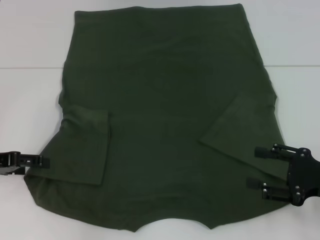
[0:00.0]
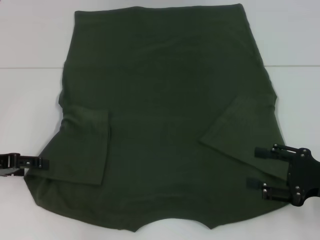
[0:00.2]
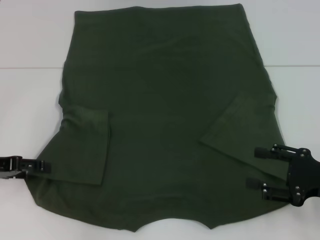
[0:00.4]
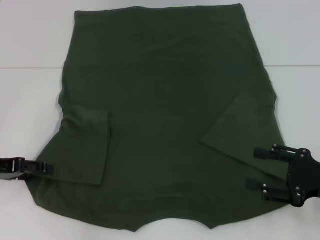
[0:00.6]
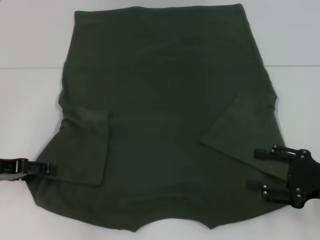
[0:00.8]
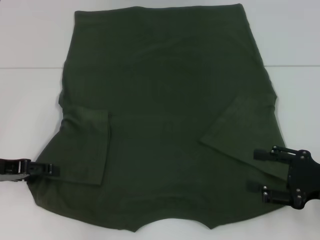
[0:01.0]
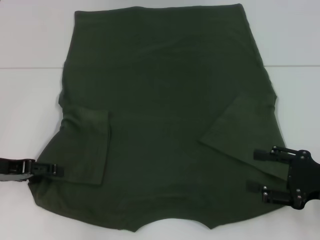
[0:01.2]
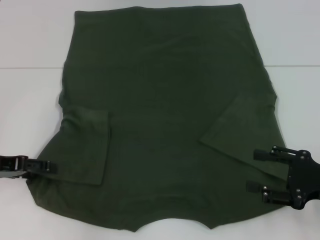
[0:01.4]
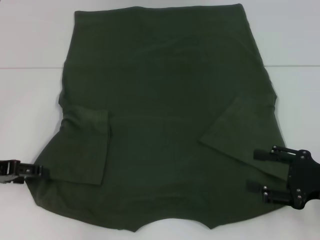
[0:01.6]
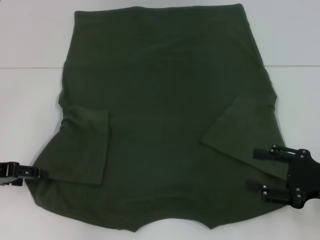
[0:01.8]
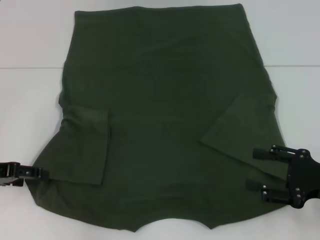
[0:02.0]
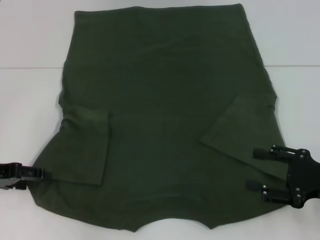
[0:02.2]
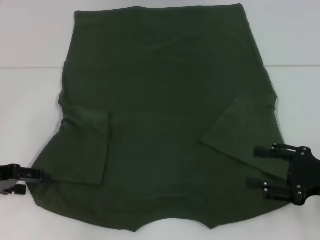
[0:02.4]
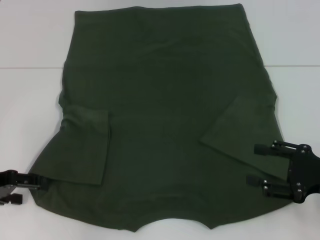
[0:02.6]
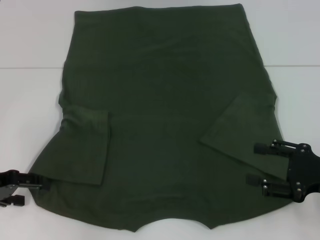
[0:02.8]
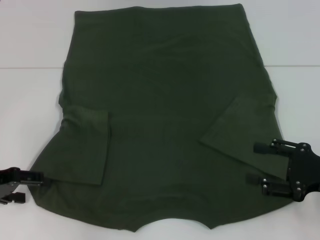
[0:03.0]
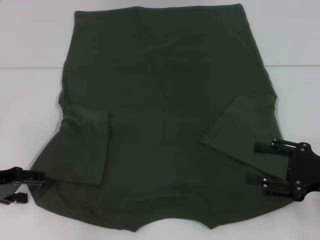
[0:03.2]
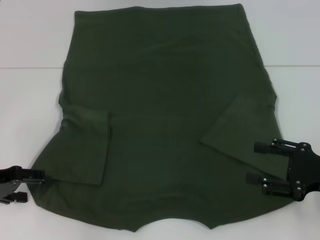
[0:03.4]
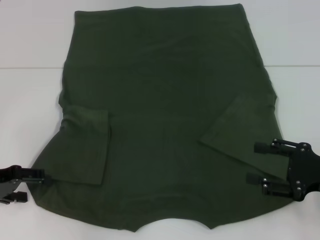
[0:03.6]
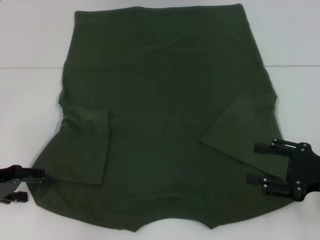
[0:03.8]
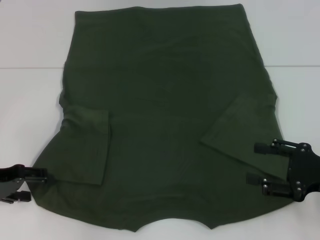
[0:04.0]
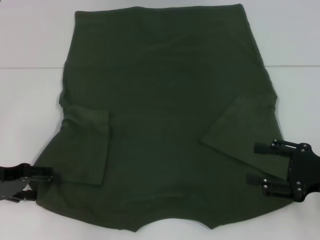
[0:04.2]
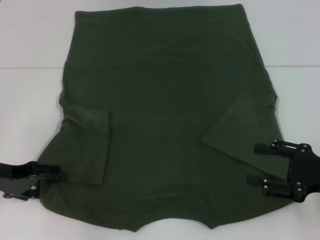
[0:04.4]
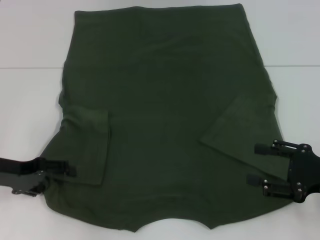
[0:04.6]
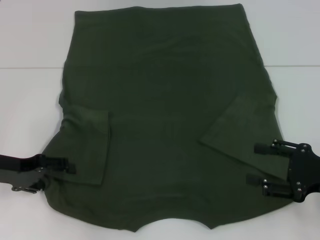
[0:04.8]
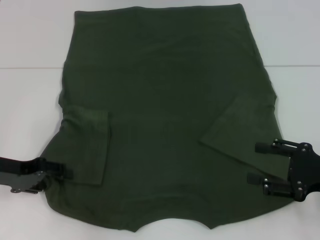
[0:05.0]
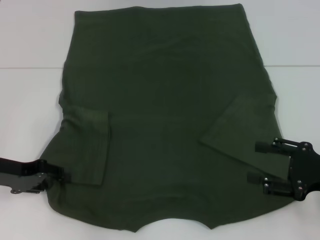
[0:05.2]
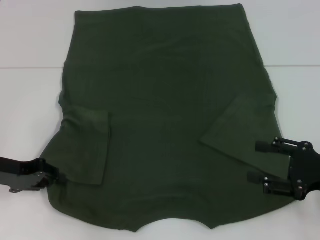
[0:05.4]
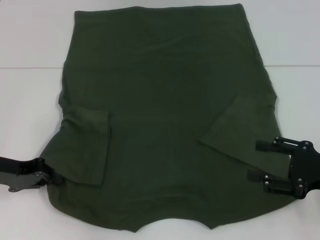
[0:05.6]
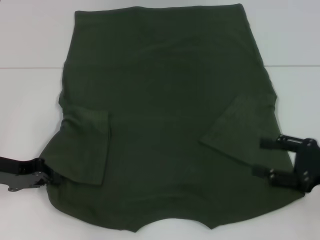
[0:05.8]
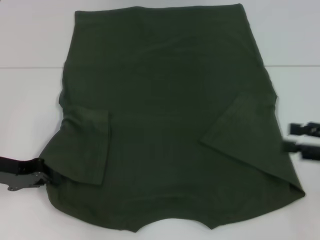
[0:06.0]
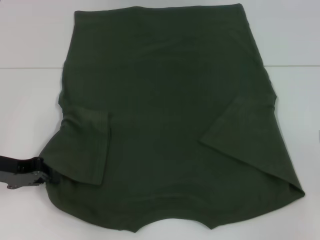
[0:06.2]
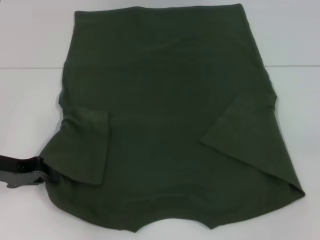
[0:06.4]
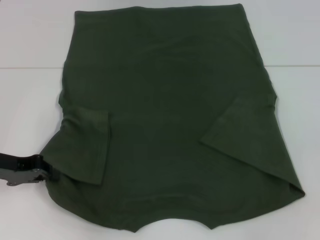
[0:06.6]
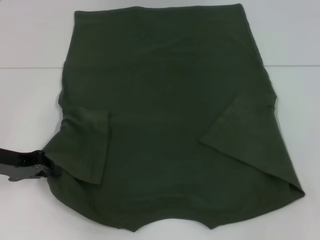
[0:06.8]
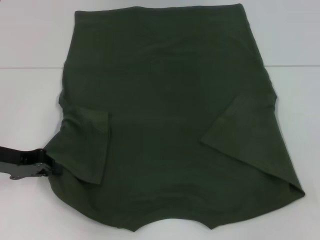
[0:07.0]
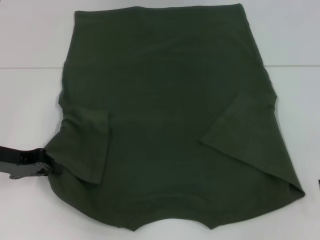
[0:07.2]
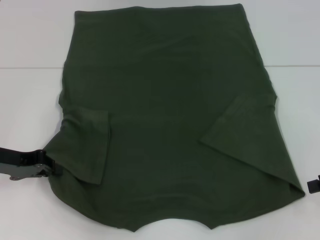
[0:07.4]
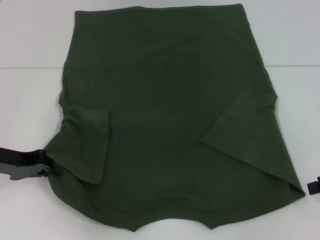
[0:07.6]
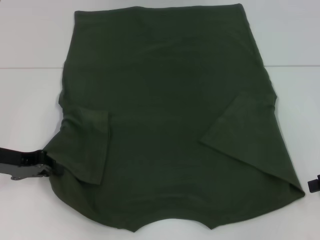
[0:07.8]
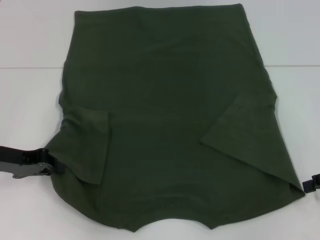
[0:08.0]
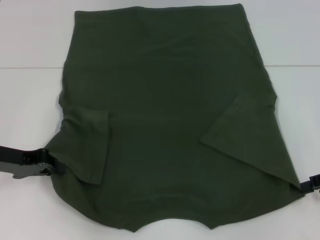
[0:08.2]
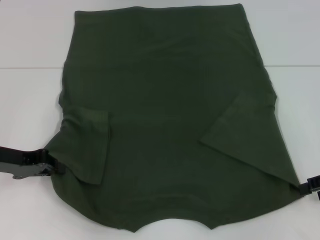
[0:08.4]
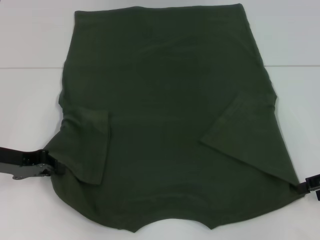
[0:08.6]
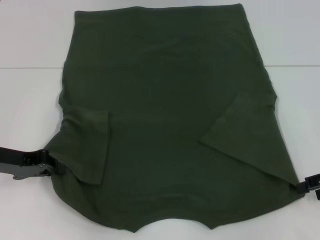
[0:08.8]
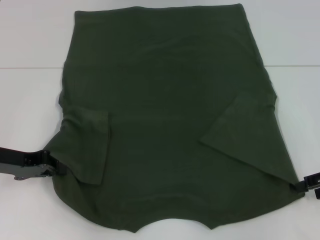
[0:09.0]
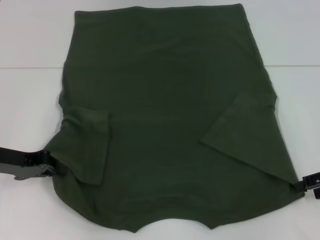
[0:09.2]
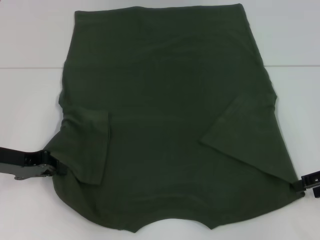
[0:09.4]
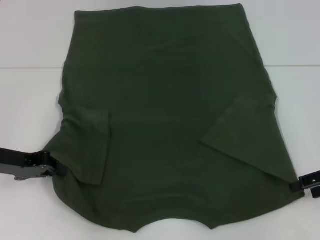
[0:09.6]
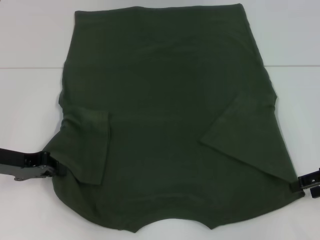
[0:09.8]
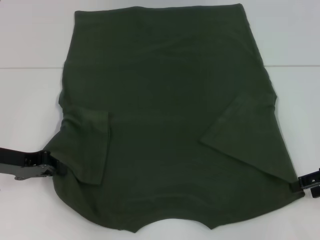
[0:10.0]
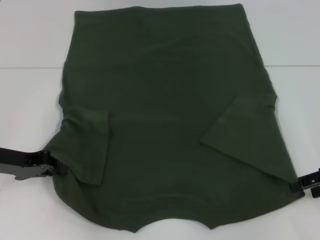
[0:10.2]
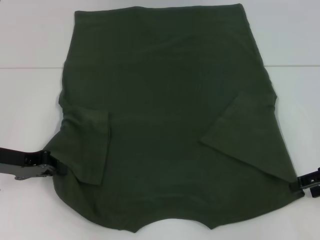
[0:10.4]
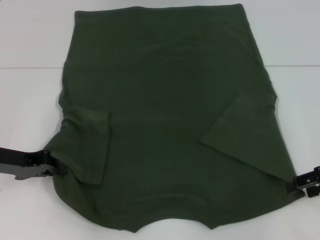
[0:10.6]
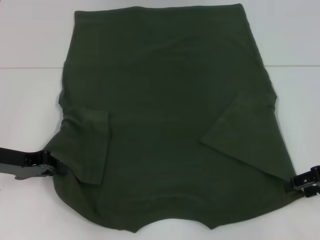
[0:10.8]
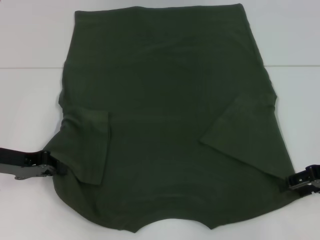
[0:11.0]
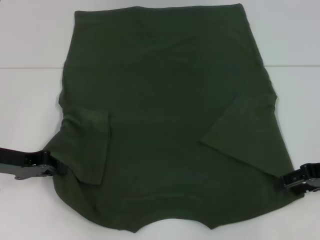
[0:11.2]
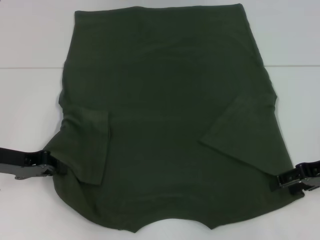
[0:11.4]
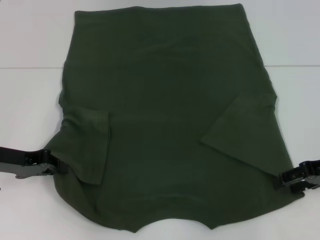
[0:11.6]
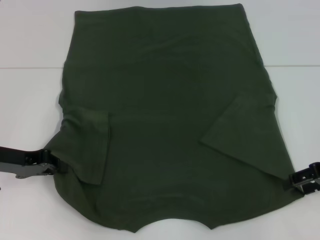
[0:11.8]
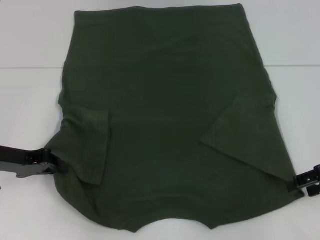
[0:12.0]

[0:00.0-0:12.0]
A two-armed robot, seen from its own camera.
Step, 0:00.0 to 0:05.8: Grab the bottom left corner with your left hand.
0:00.0 to 0:04.4: The grippers make only small movements.
0:04.4 to 0:06.0: The left gripper closes; the right gripper moves upward, about 5 cm.
0:07.6 to 0:09.0: The grippers make only small movements.
0:09.0 to 0:10.4: The two grippers keep their place.
0:10.4 to 0:12.0: There are only small adjustments of the grippers.

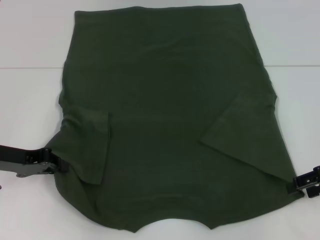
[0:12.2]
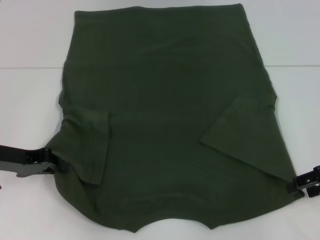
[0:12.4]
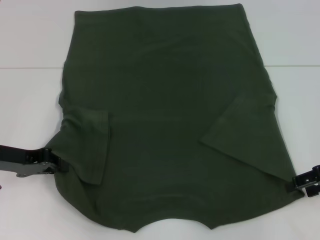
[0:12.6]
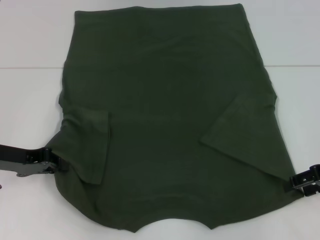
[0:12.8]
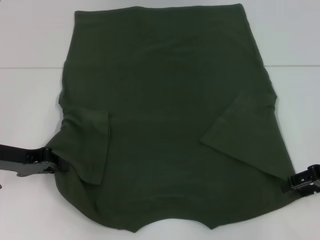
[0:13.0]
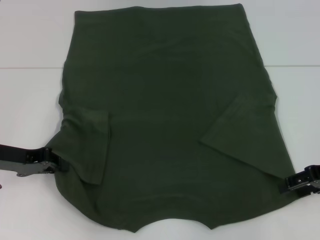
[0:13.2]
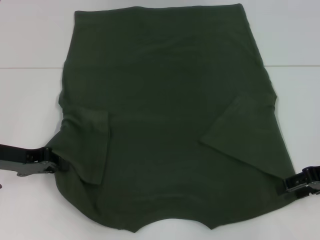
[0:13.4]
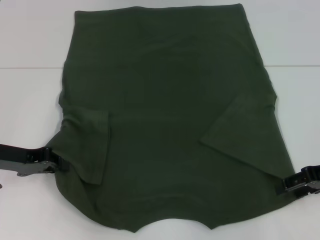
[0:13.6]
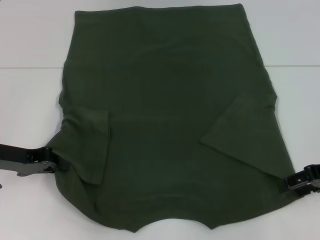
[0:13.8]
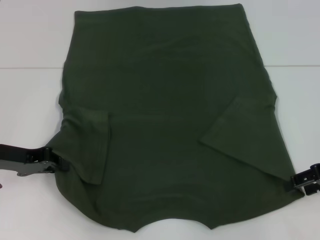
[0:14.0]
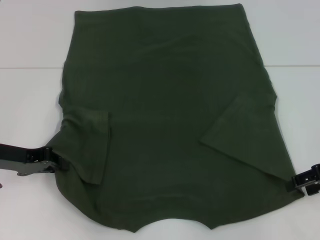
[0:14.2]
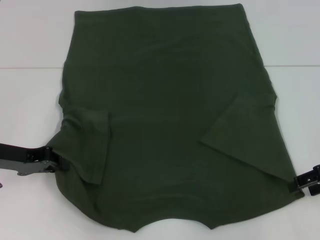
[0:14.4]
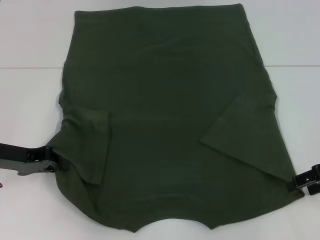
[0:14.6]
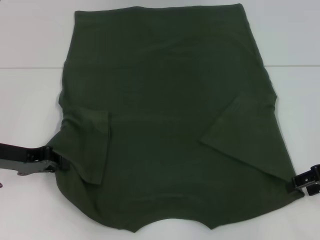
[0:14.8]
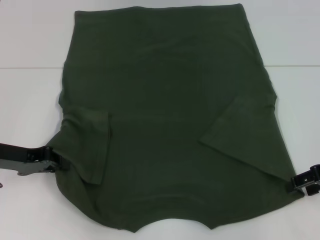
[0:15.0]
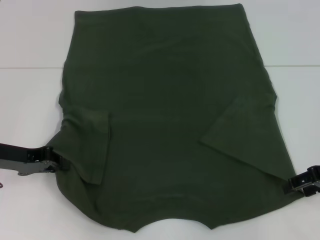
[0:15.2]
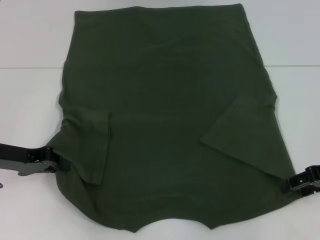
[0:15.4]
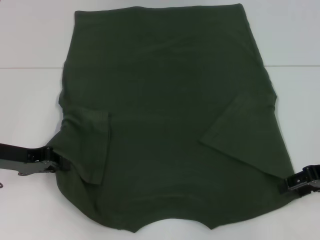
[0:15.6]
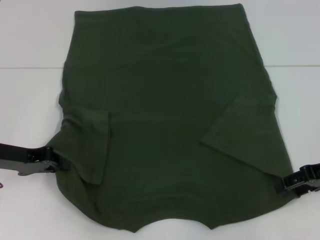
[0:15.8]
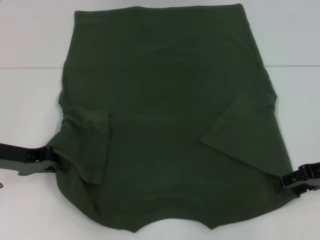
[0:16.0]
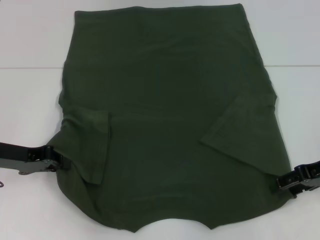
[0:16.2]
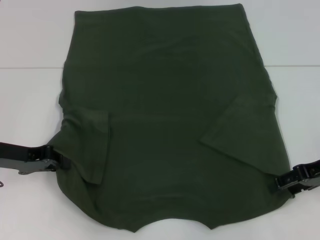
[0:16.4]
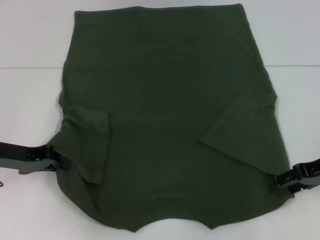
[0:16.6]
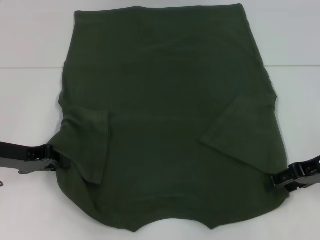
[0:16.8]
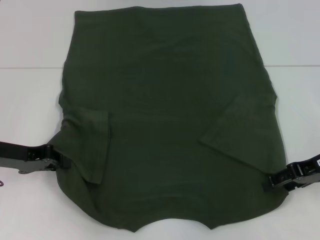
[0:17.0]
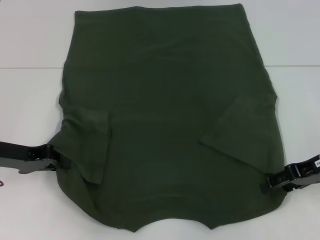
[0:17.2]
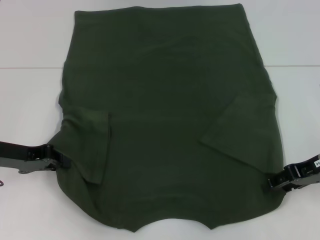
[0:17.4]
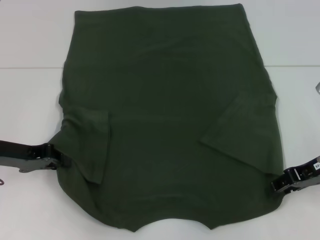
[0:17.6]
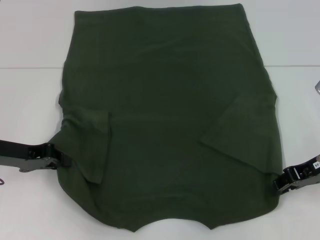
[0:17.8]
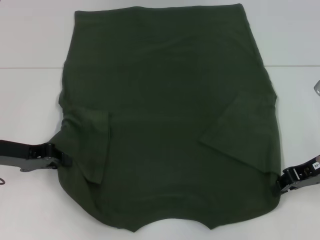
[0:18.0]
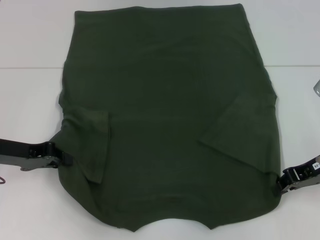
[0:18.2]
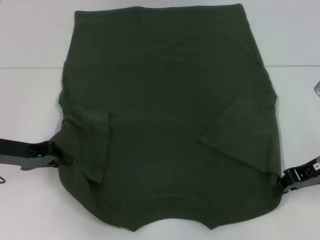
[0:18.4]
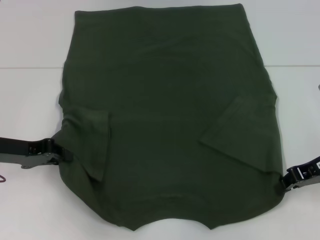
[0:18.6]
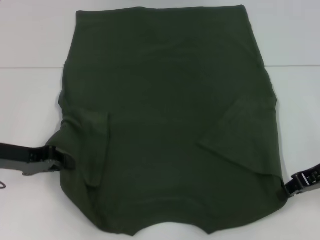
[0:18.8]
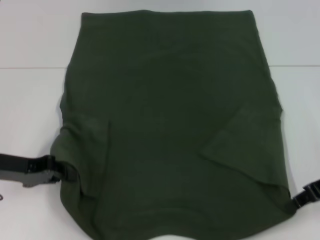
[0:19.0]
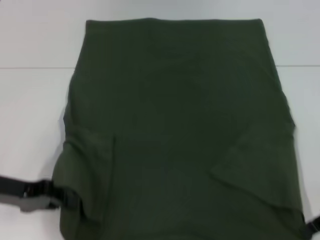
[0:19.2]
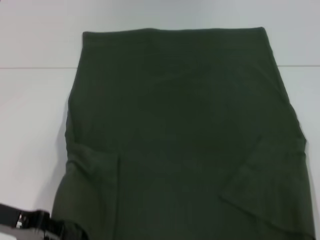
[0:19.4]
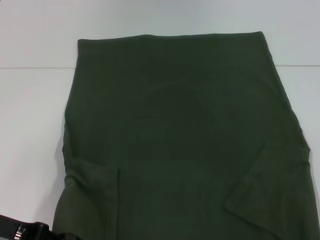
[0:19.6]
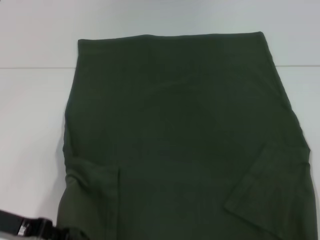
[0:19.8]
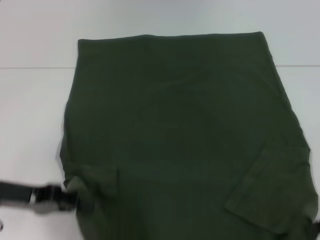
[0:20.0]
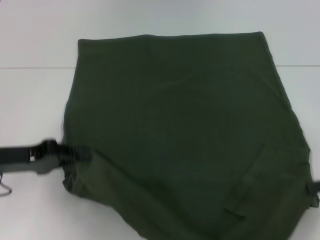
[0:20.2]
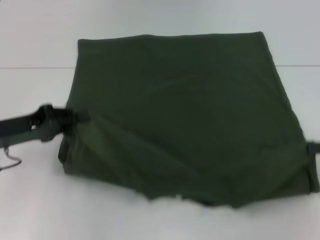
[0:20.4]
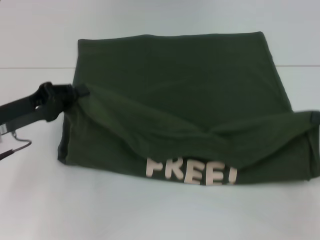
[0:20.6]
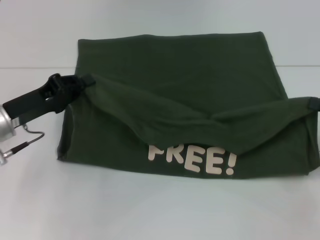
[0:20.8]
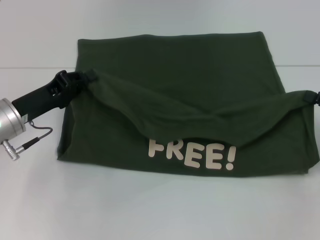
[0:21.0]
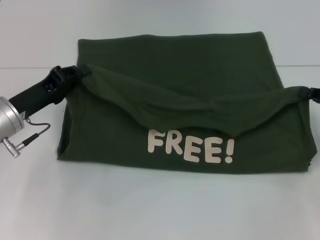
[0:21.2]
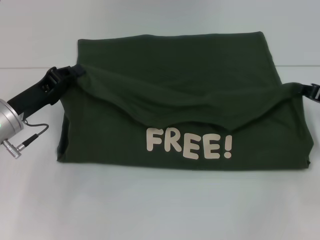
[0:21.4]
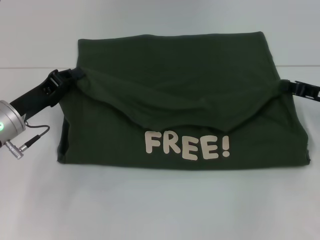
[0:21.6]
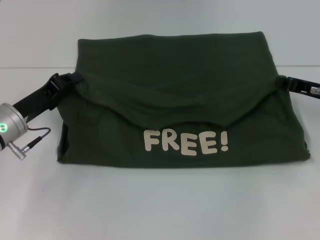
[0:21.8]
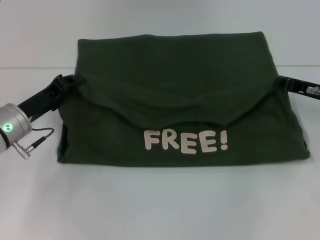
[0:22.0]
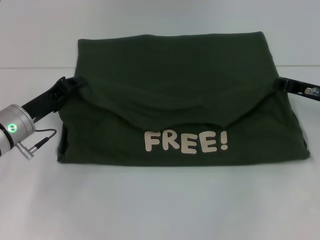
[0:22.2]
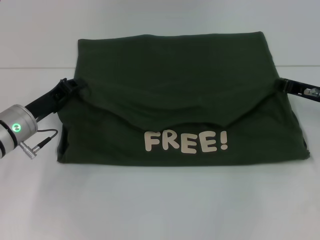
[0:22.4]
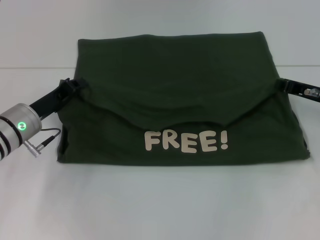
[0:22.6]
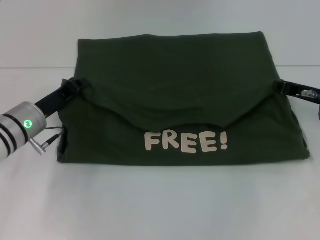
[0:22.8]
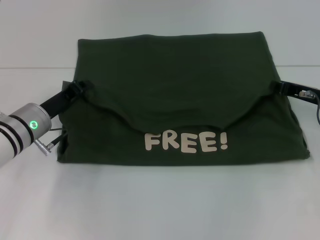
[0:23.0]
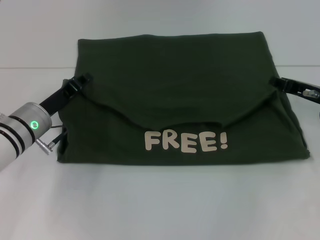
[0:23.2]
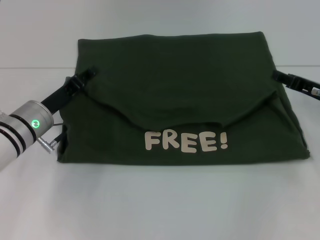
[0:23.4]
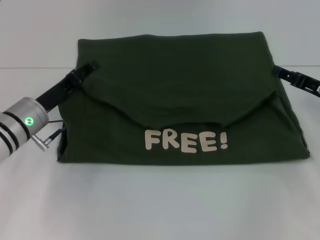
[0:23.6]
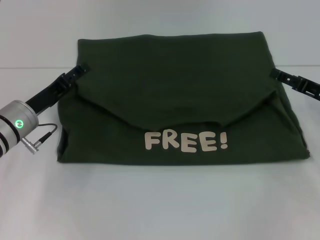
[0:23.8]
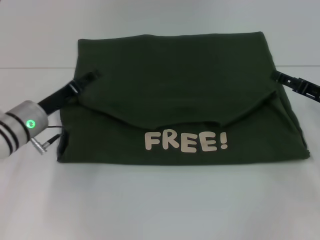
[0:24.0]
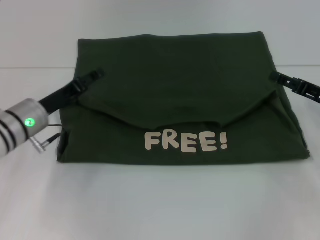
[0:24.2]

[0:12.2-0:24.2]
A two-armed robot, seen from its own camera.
Step, 0:12.2 to 0:18.2: Grab the bottom right corner with your right hand.
Step, 0:18.4 to 0:23.2: Fold the clothes with your right hand.
Step, 0:23.4 to 0:23.8: Fold the clothes with your left hand.
0:12.2 to 0:13.8: The grippers move only a little.
0:13.8 to 0:15.2: Both grippers stay about where they are.
0:15.2 to 0:16.6: The grippers move only a little.
0:16.6 to 0:18.2: The right gripper closes its fingers.
0:18.2 to 0:19.8: Both grippers travel together backward, some 5 cm.
0:19.8 to 0:21.2: The grippers both shift forward by roughly 10 cm.
0:21.2 to 0:22.6: The right gripper heads to the left and forward, covering approximately 10 cm.
0:22.6 to 0:24.2: The right gripper opens up. Meanwhile the left gripper opens its fingers.
